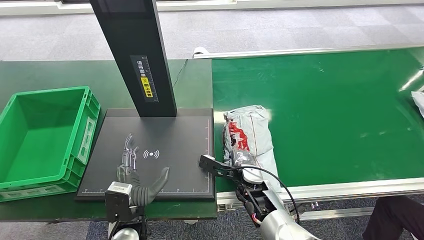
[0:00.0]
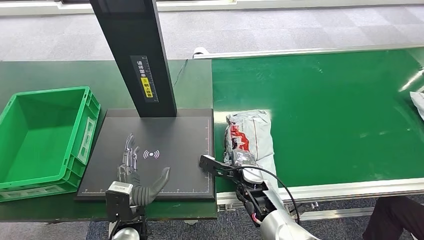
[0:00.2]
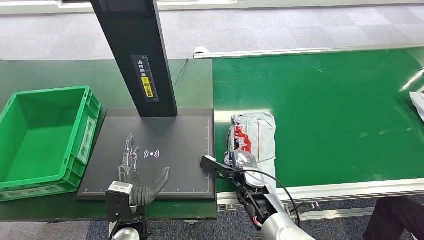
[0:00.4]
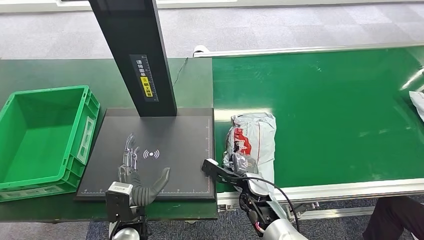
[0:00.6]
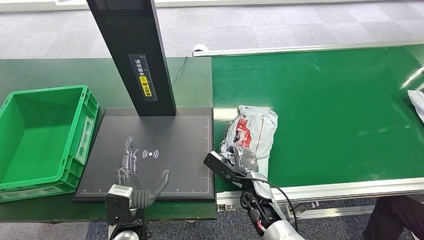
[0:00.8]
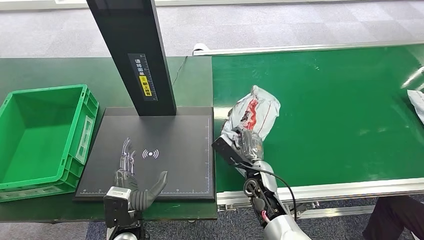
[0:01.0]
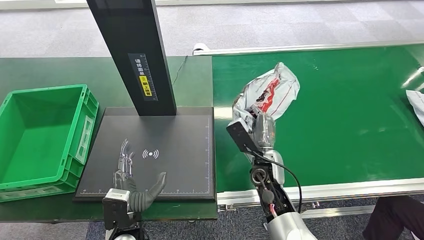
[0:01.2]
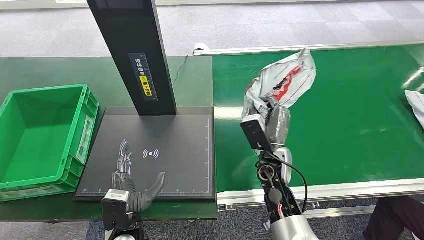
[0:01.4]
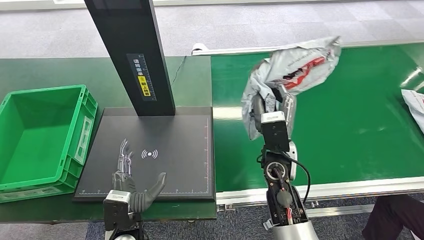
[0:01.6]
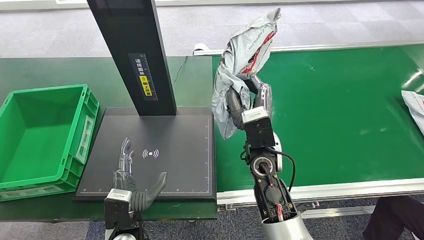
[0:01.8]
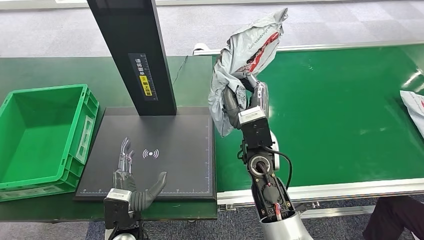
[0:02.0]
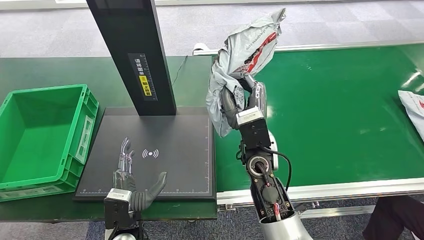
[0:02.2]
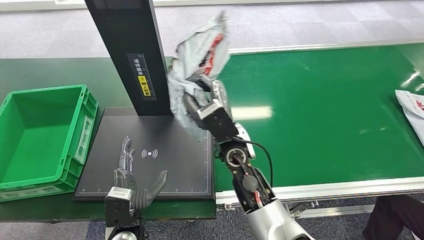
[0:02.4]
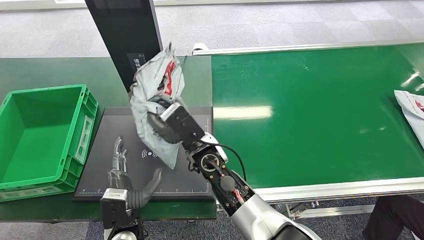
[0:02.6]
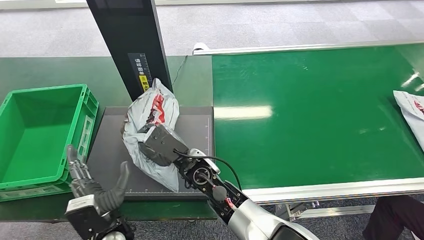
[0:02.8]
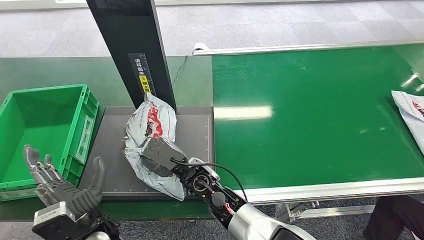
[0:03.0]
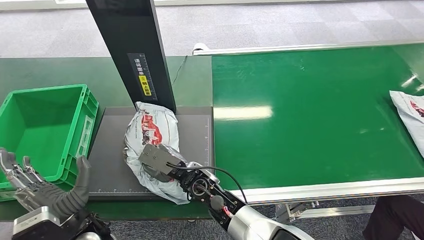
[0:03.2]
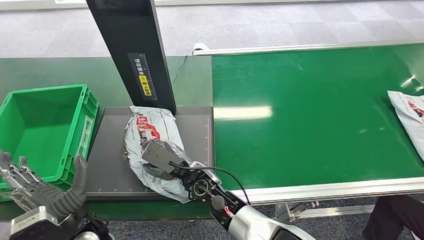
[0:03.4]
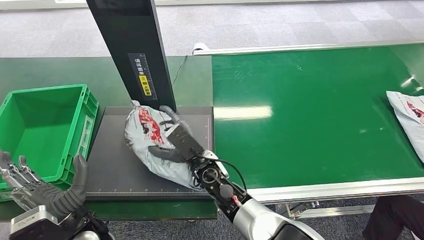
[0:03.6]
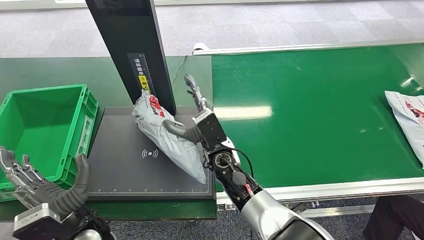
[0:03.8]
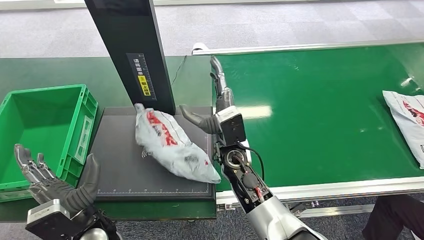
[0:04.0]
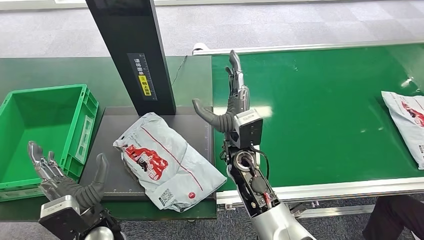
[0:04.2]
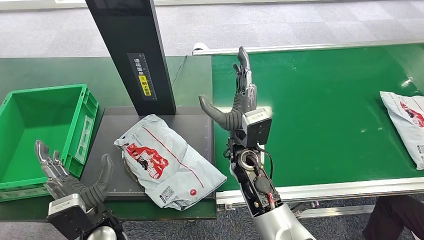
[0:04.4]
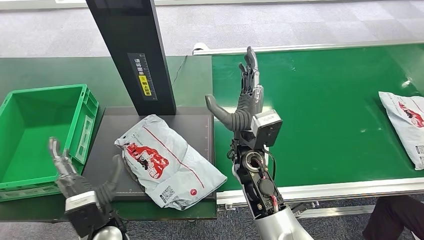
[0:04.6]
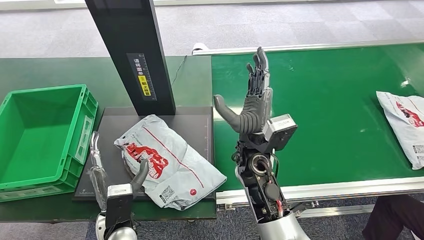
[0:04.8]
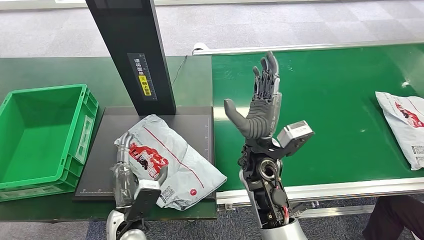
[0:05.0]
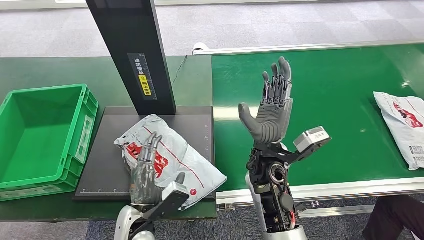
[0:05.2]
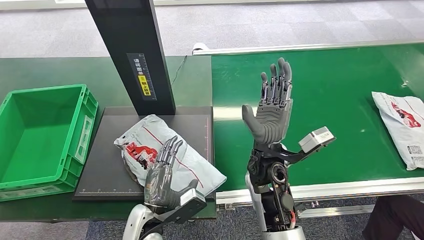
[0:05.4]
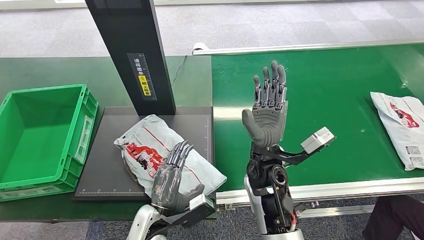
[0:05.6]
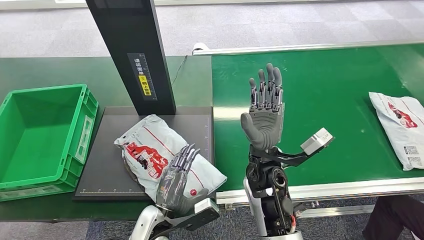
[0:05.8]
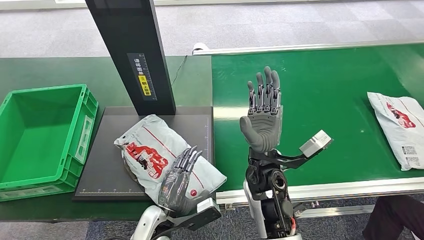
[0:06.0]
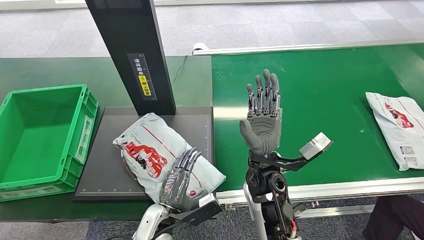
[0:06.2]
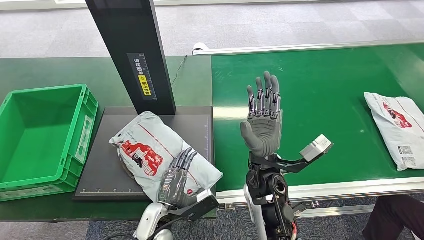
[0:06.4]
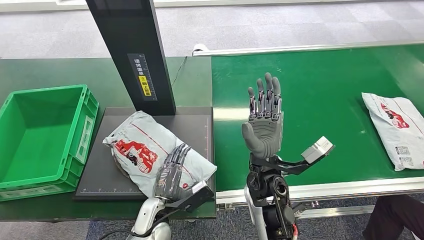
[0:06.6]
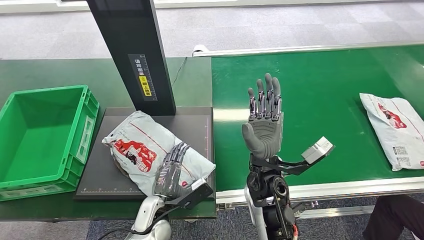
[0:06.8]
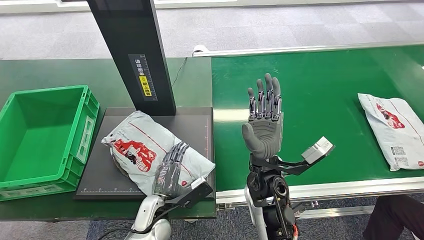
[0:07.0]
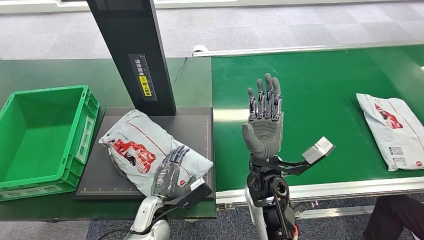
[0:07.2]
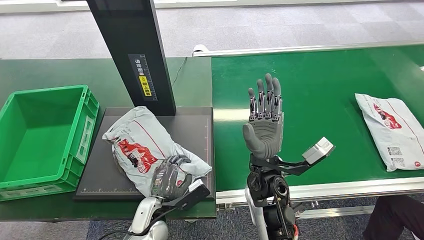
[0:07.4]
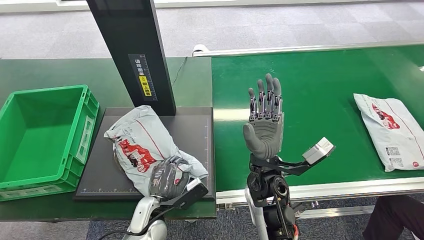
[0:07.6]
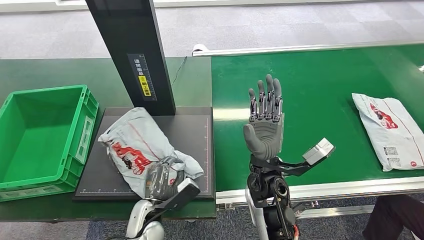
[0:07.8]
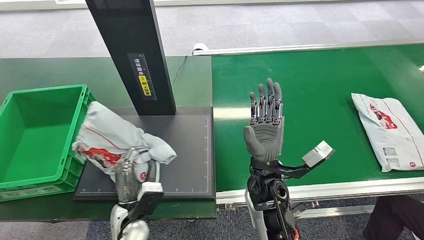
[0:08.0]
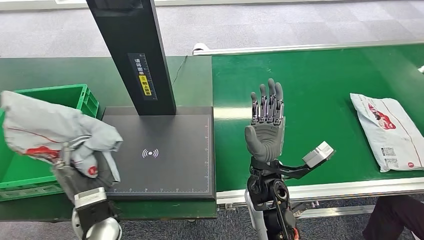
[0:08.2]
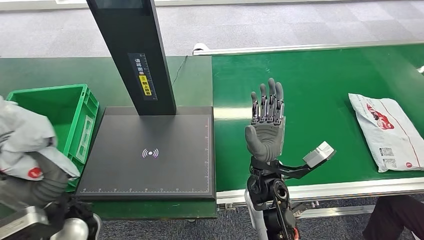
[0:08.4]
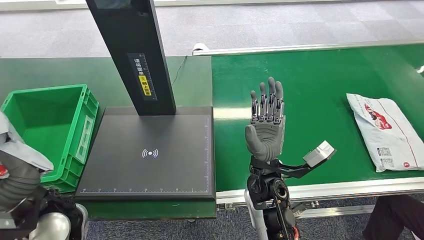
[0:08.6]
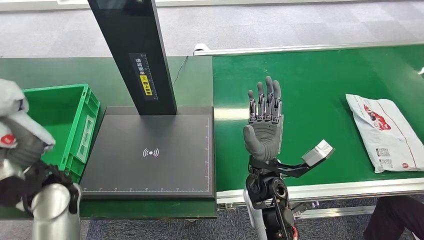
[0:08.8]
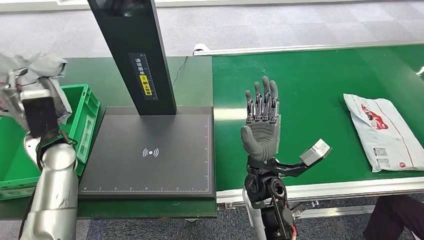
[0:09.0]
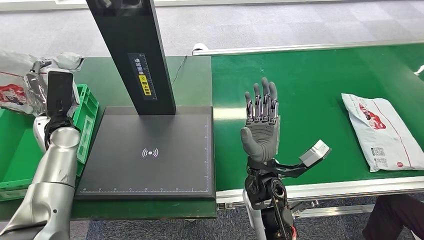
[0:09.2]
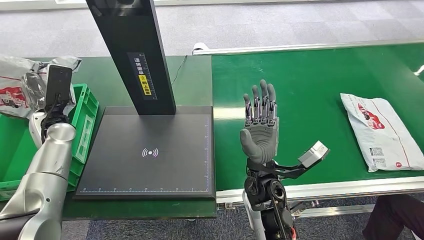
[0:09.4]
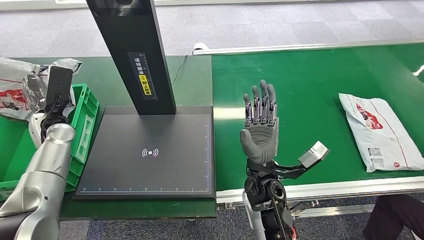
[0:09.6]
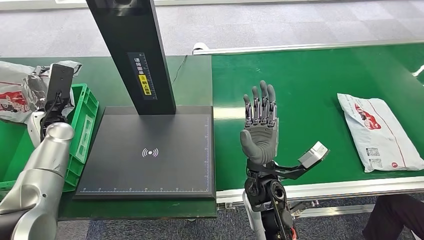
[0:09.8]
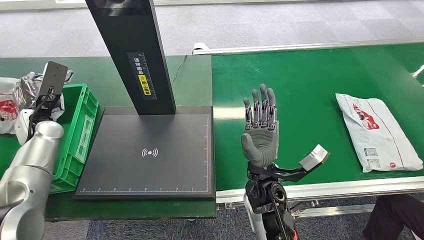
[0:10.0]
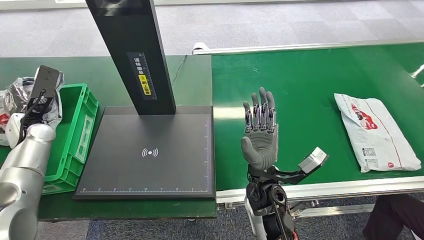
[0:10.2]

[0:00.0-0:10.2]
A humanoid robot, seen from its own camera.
Step, 0:01.8 to 0:05.0: Place the package onto the inbound machine.
Step, 0:05.4 to 0:08.6: Pick up the package from the inbound machine.
0:03.0 to 0:04.4: The right hand is displaced upward and to the right by approximately 10 cm.
0:04.4 to 0:05.8: The left hand travels to the right and downward by roughly 10 cm.

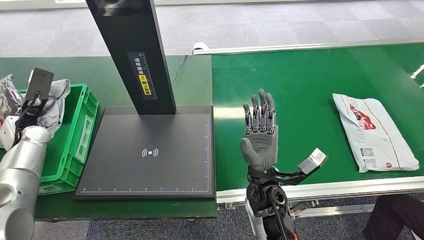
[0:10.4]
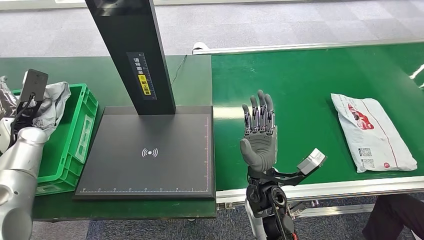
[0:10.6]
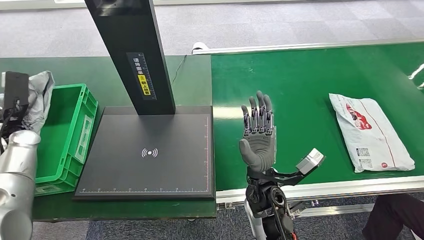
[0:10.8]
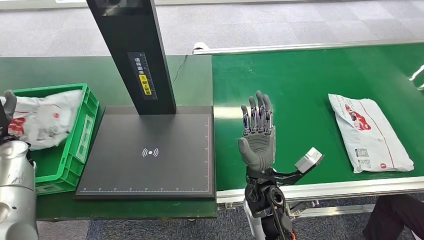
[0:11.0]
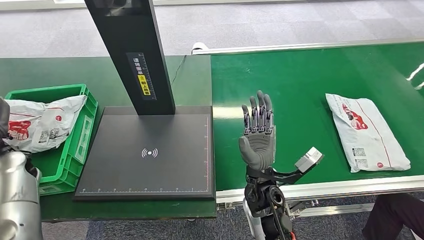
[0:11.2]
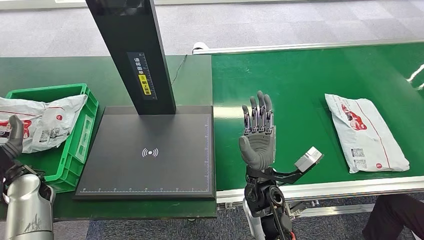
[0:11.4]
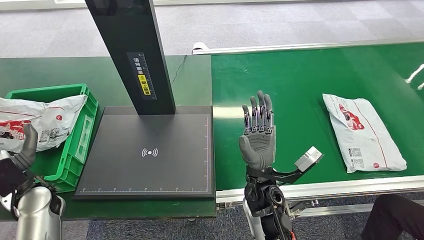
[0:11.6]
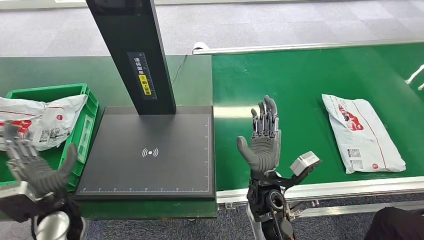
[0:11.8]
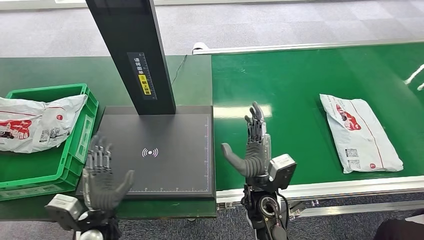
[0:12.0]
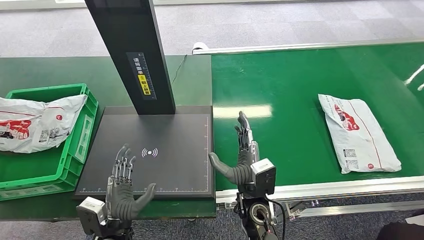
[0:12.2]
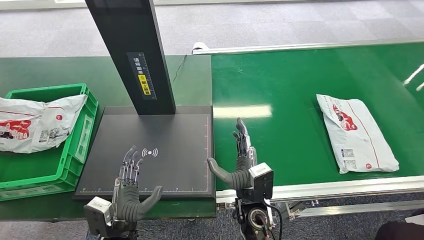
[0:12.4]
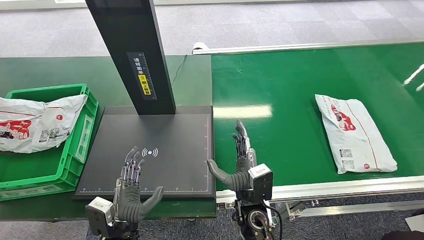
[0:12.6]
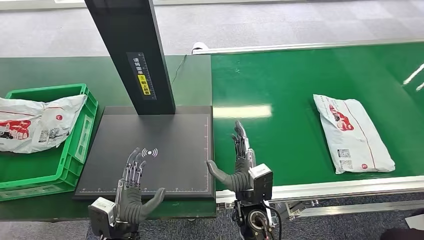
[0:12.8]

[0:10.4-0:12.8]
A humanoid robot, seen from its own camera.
Step, 0:10.4 to 0:12.6: Place the package into the parcel locker.
0:10.4 to 0:11.6: The left hand heads backward, downward and to the right, covering roughly 15 cm.
0:11.6 to 0:12.8: The left hand moves to the right, backward and downward, about 25 cm; the right hand goes approximately 5 cm backward.
